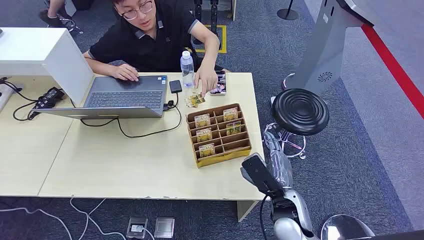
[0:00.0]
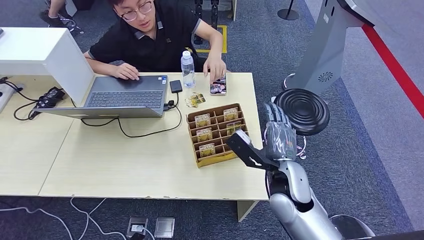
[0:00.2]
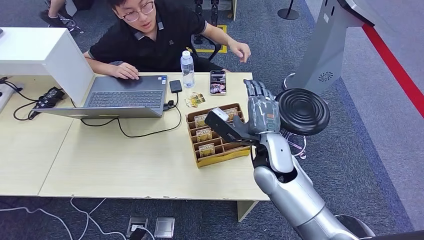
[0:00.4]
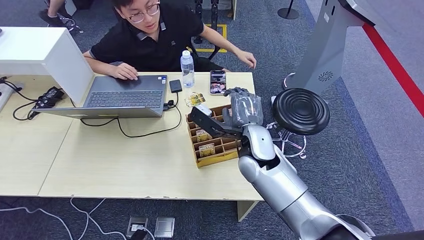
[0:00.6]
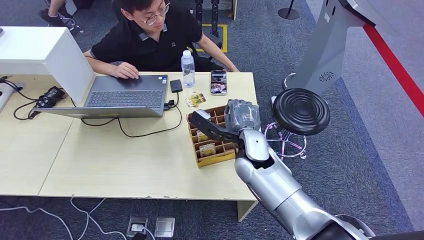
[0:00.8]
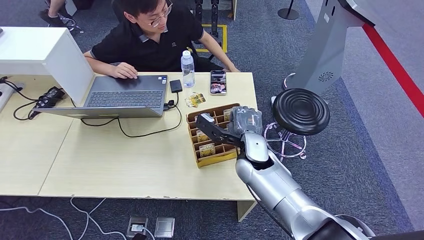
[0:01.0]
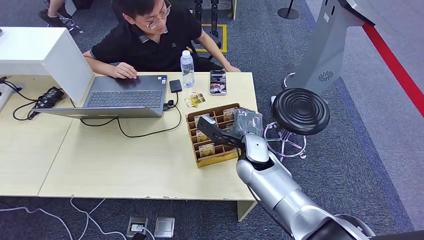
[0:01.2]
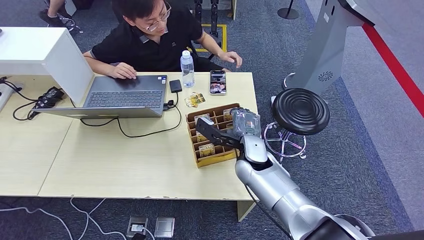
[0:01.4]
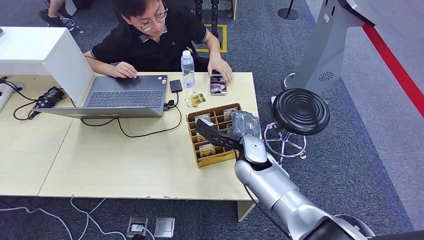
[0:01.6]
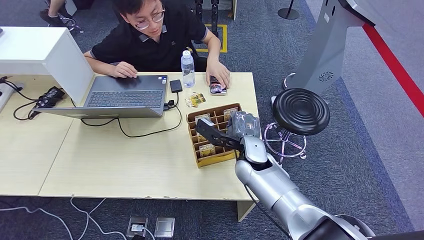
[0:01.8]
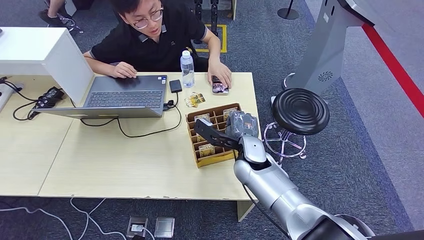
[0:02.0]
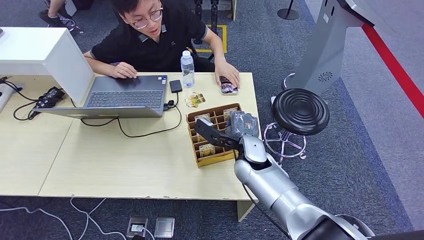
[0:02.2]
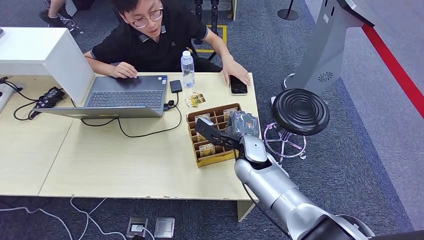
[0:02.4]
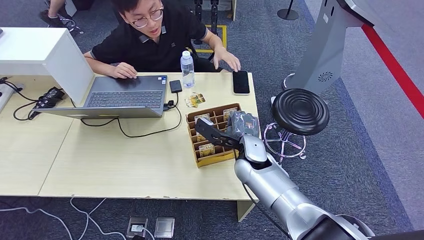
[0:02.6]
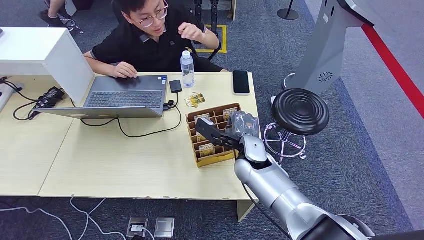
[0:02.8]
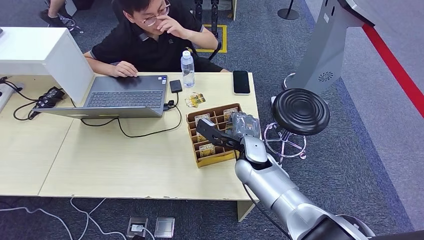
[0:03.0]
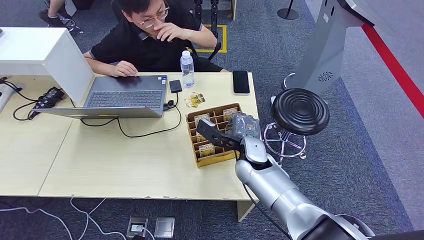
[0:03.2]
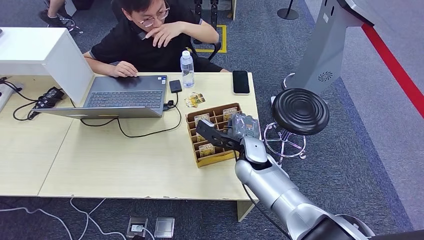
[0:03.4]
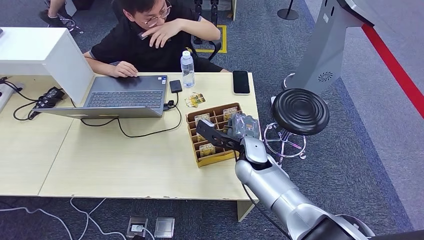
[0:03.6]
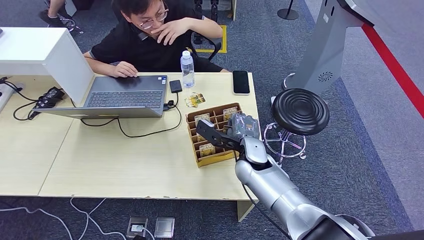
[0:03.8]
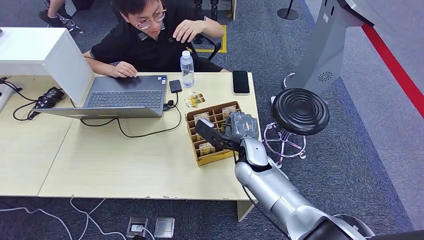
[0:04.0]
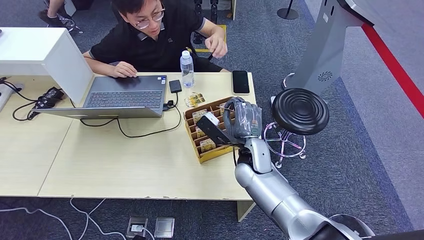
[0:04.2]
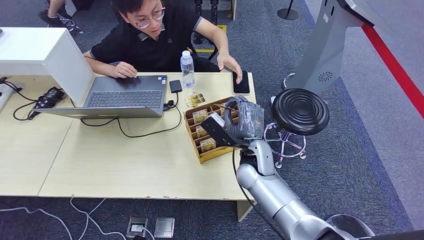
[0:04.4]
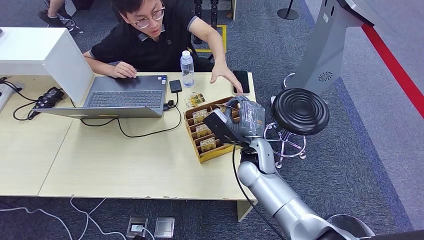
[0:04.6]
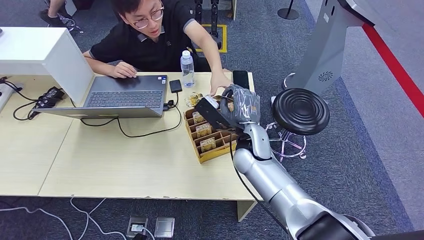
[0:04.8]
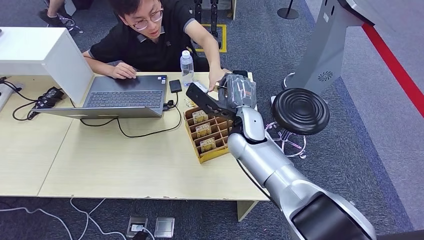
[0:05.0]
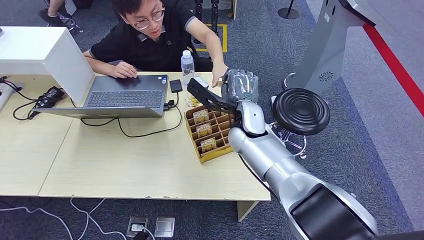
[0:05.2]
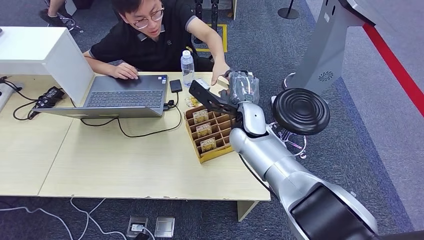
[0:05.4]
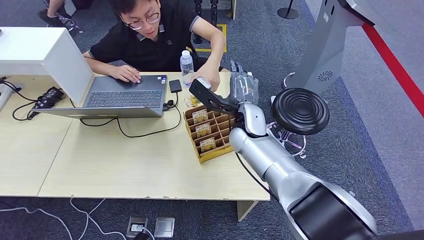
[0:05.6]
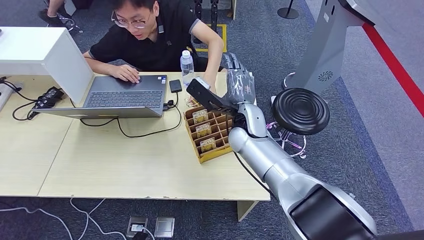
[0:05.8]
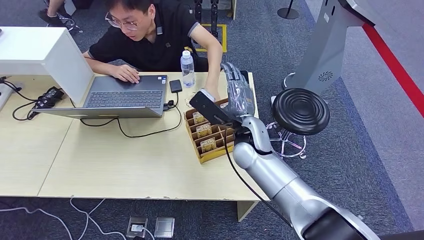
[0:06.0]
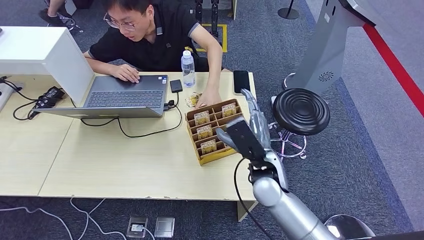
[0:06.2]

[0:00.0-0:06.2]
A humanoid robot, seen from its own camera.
Step, 0:00.0 to 0:04.6: Pick up the key card from the card box.
Step, 0:04.8 to 0:06.2: Hand the key card to the target.
0:01.6 to 0:03.2: Both hands stay put.
